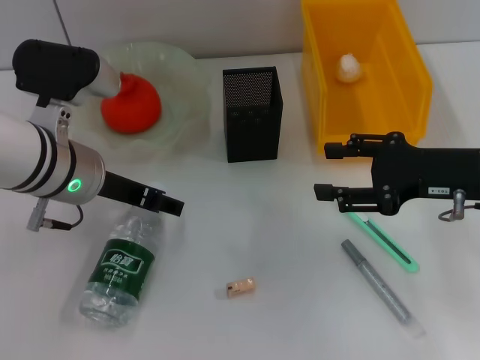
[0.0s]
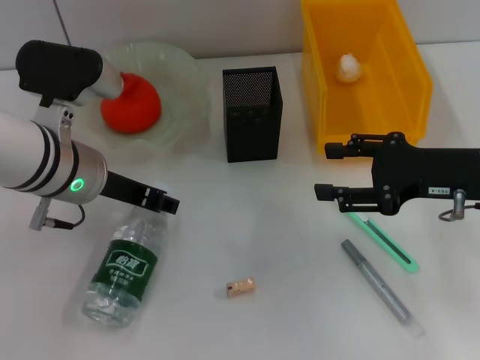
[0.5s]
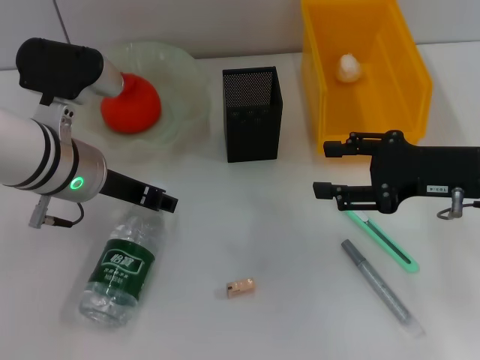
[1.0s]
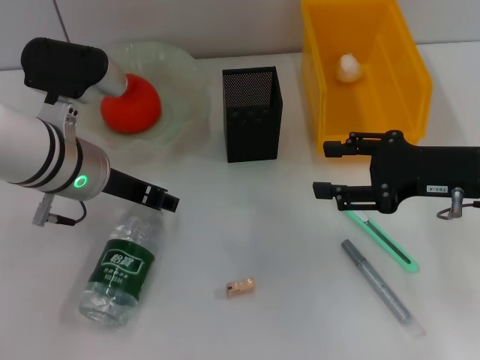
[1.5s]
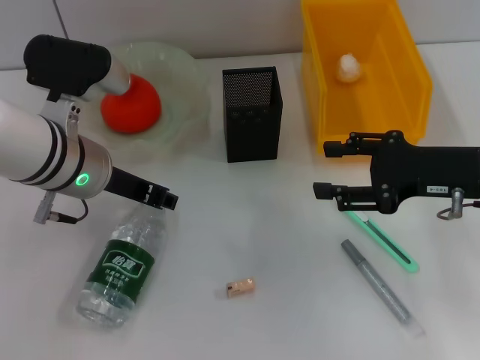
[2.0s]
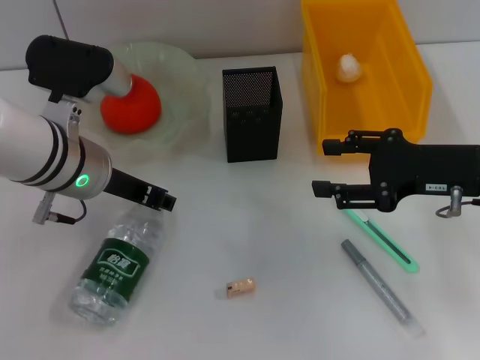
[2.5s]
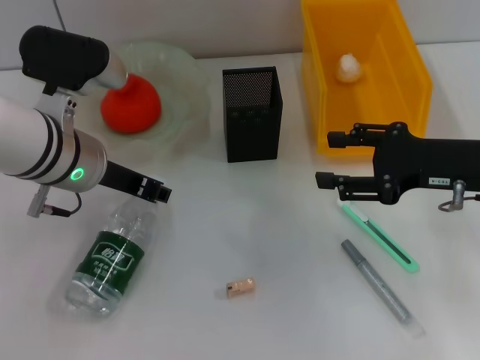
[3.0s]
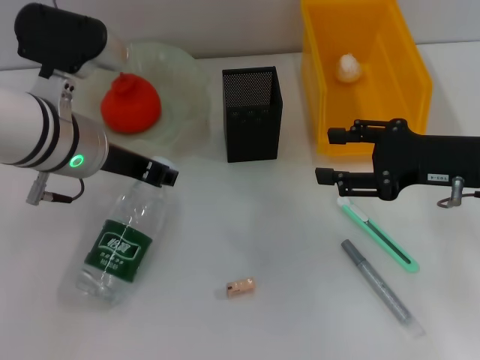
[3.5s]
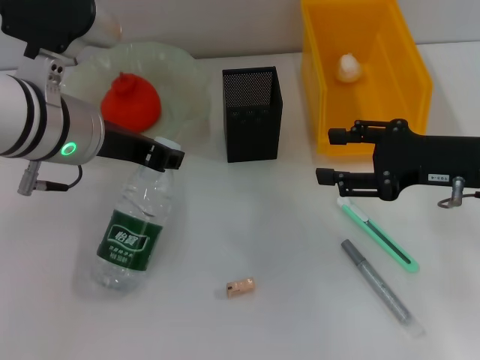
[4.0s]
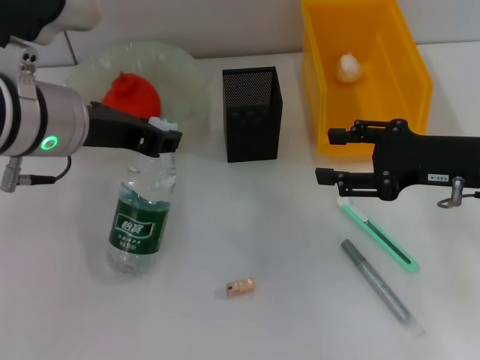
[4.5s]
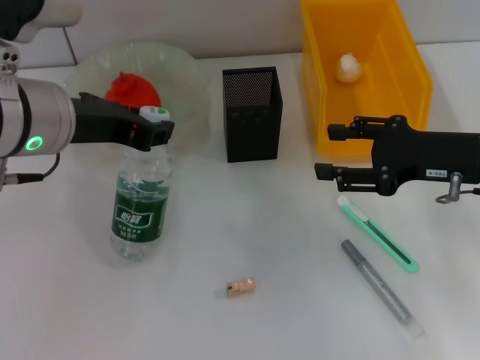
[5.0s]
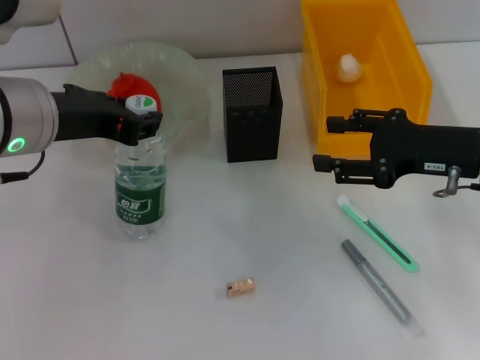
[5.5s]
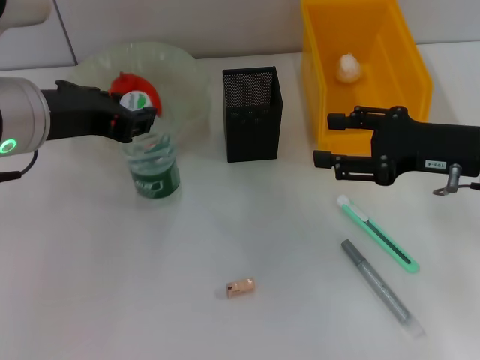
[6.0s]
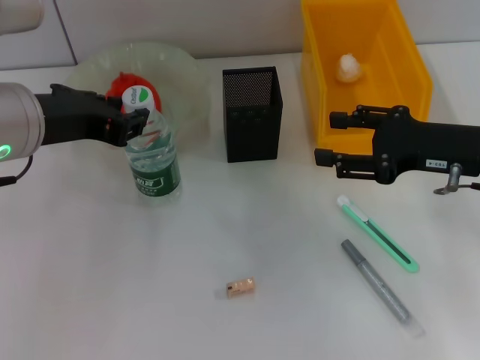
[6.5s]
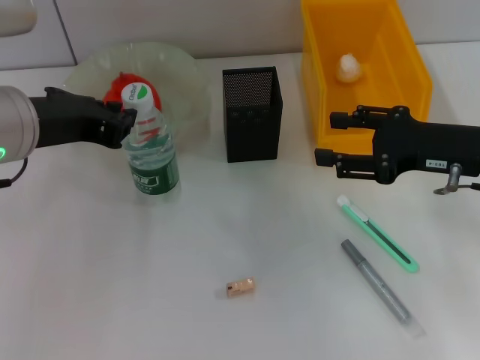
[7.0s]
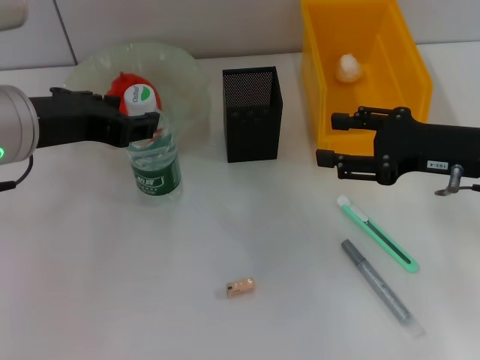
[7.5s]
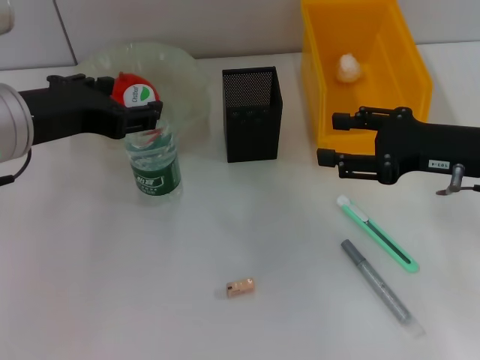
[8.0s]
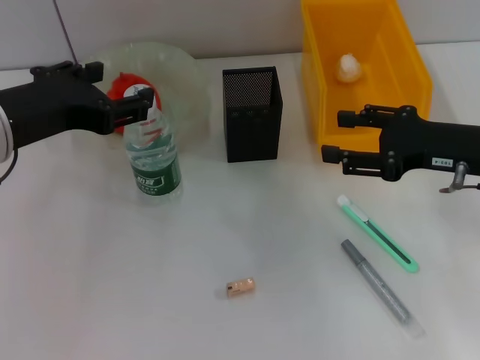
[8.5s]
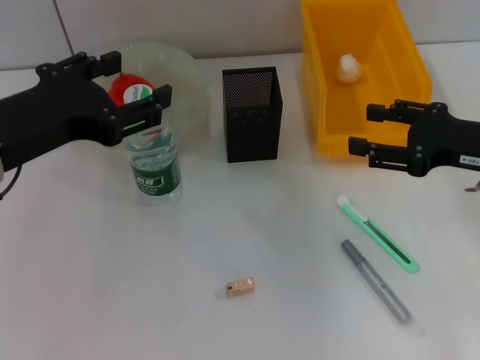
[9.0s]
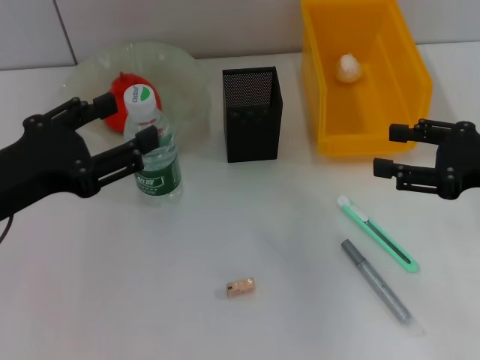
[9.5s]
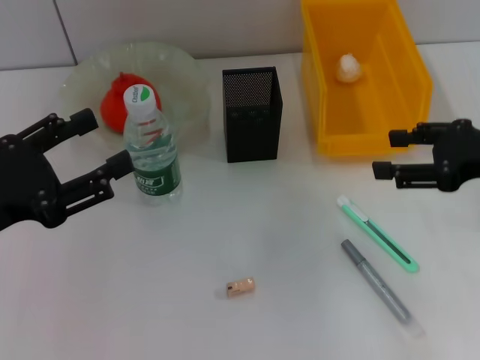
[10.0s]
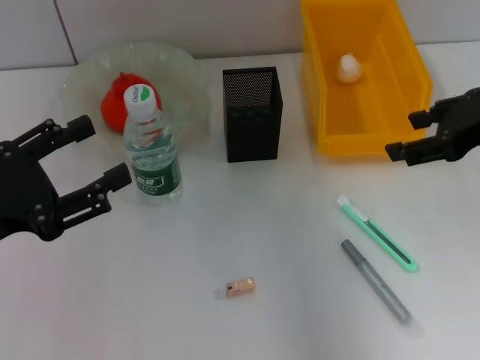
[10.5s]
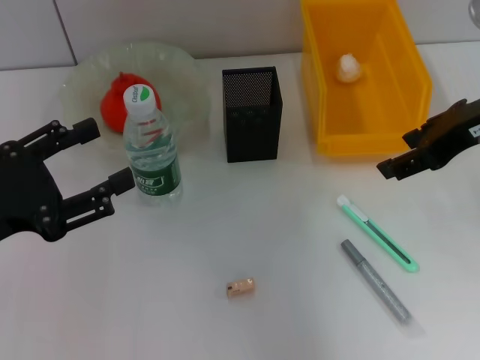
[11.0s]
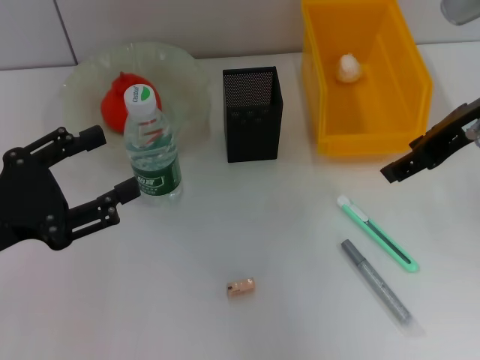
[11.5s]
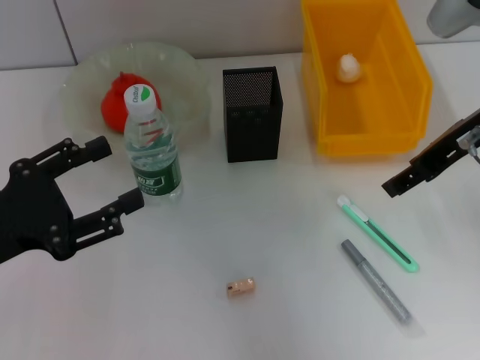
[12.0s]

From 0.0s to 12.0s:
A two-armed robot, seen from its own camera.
Step, from 0.0s to 2.5s: Grab the water bottle with the left hand.
Step, from 3.0s to 6.5s: Place the water bottle on the table with the left hand.
From 0.0s to 2.0s: The left gripper closes up.
From 2.0s to 4.0s: The left gripper is displaced upward by about 5 cm.
From 4.0s to 6.0s: The left gripper changes place by approximately 5 cm.
From 6.0s to 8.0s: The left gripper opens its fingers.
From 8.0s to 10.0s: The right gripper shifts by some 5 cm; the left gripper travels to the left, backward and downward by approximately 10 cm.
From 10.0s to 12.0s: The right gripper travels to the left, upward and forward by approximately 10 cm.

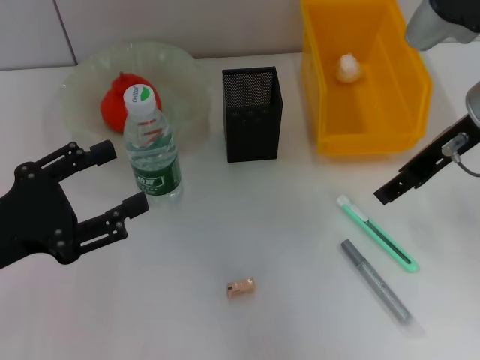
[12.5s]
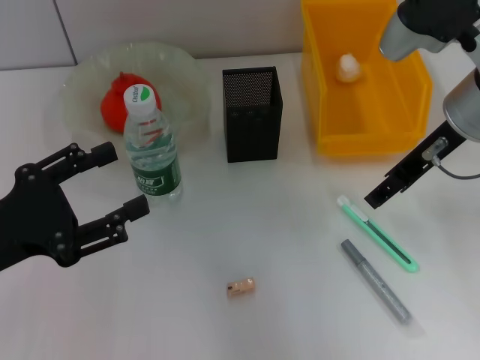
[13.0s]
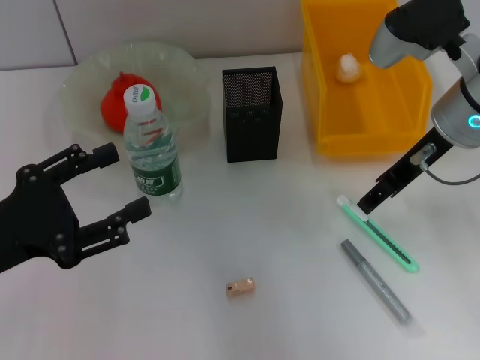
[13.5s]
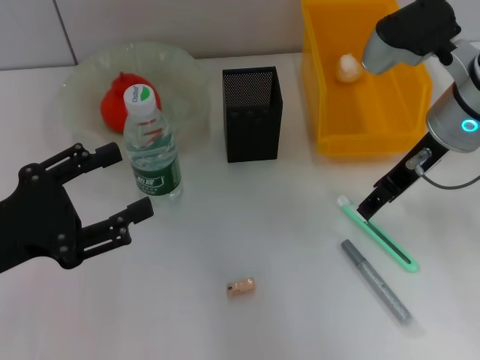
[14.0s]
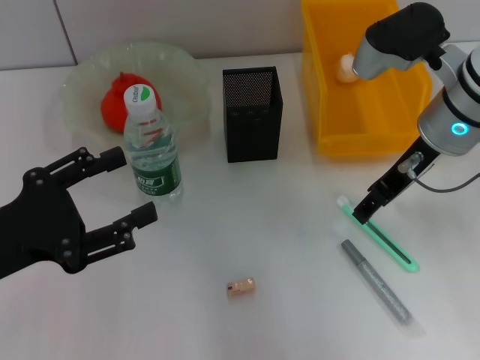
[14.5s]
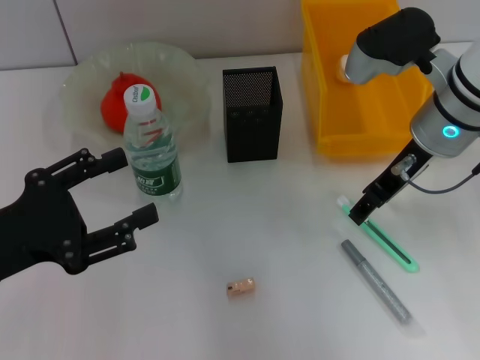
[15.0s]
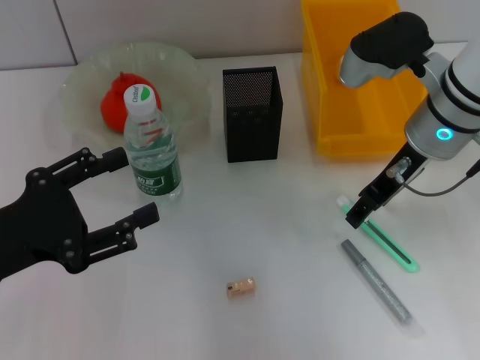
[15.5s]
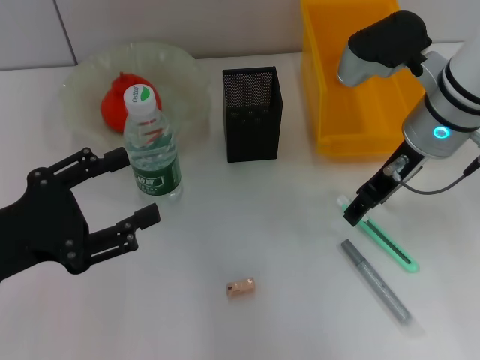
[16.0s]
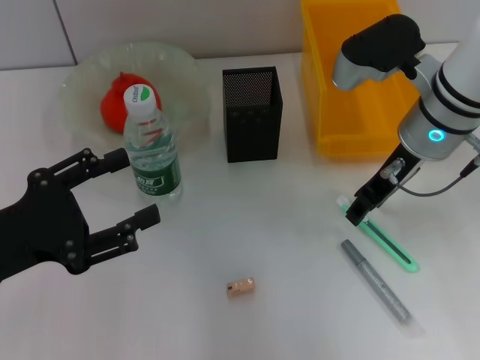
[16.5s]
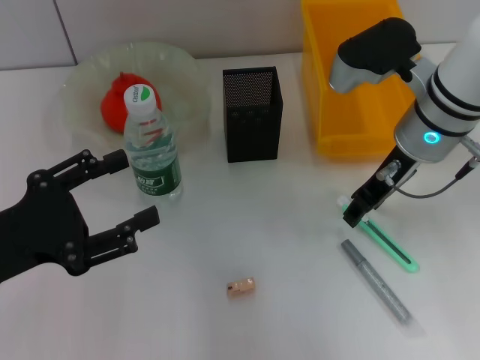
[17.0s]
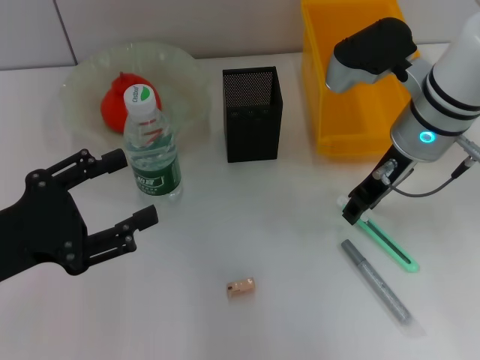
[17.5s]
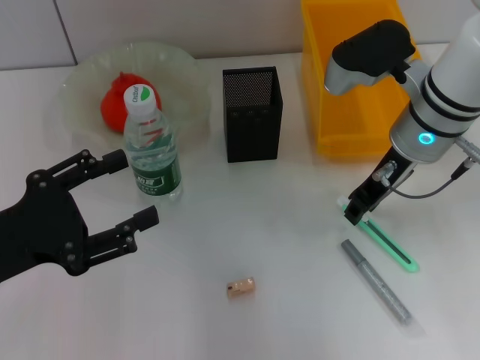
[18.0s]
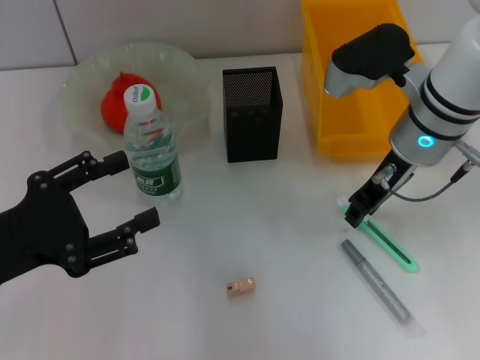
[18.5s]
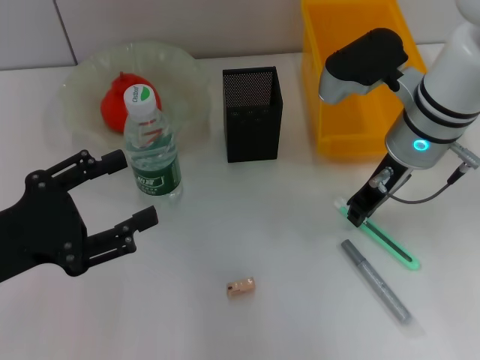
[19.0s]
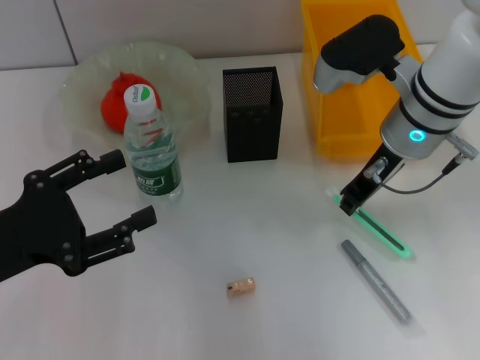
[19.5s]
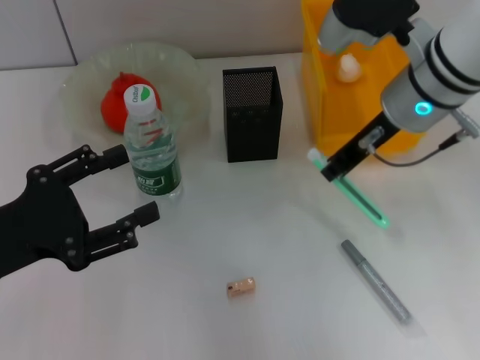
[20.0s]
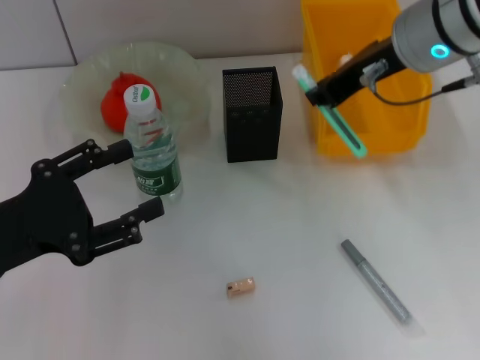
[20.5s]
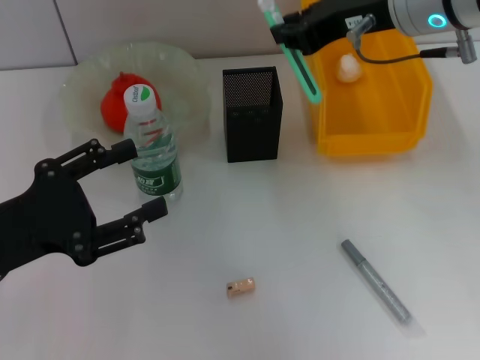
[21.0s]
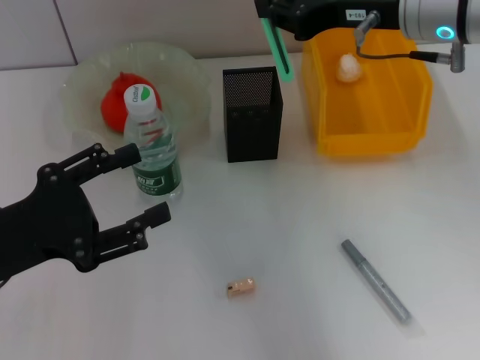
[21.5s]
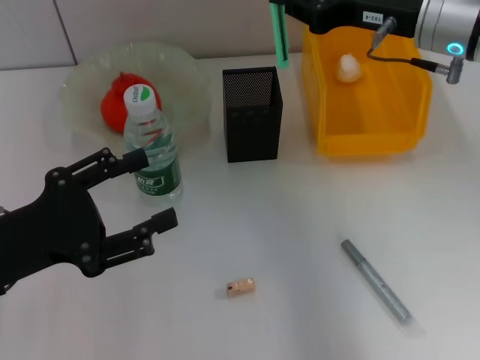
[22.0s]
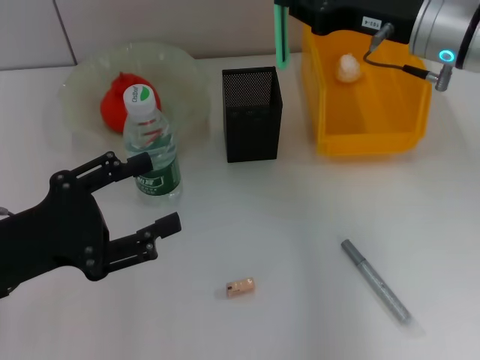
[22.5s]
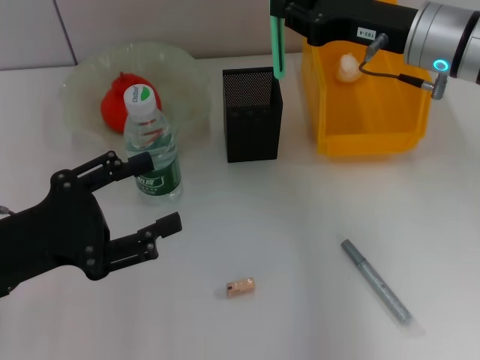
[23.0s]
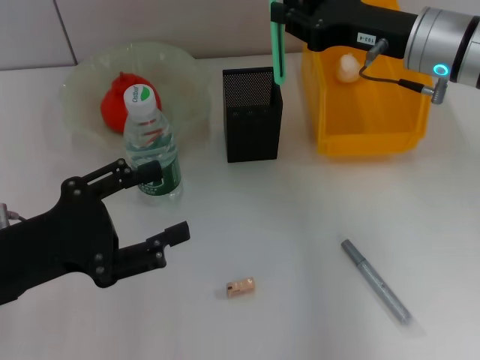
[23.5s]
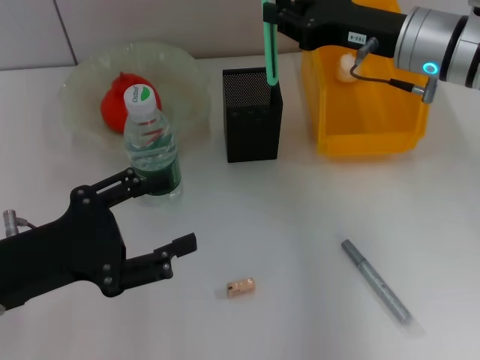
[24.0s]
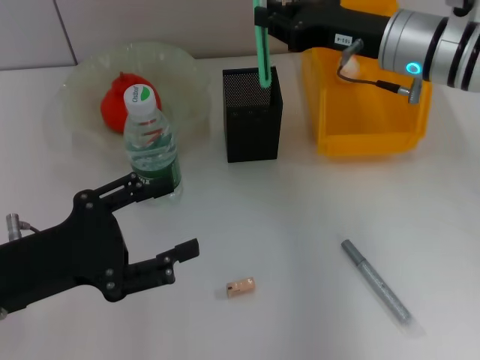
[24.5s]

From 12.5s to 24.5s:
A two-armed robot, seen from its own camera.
Step, from 12.5s to 19.0s: Grab the blue utility knife with the right hand.
From 12.5s to 14.5s: The right gripper changes place by about 5 cm.
From 14.5s to 16.5s: The grippers stay close to where they were, moving slightly.
From 16.5s to 18.5s: The two grippers keep their place.
From 18.5s to 20.5s: The right gripper is displaced upward by approximately 10 cm.
From 20.5s to 22.5s: The right gripper heads downward and to the right, covering about 10 cm.
From 22.5s to 24.5s: The grippers move only a little.

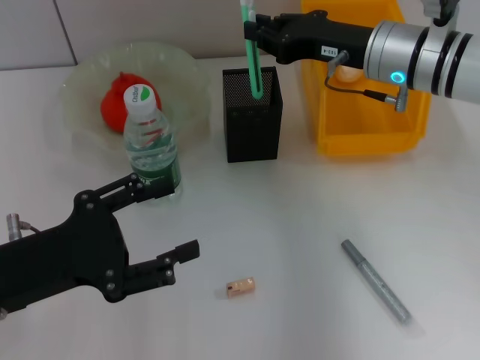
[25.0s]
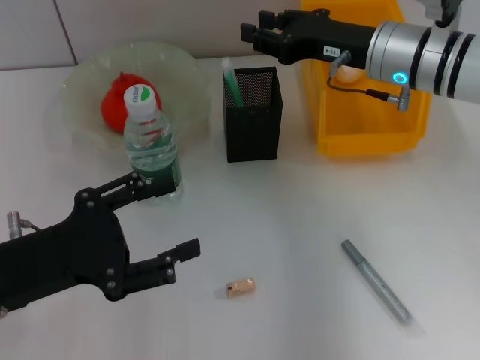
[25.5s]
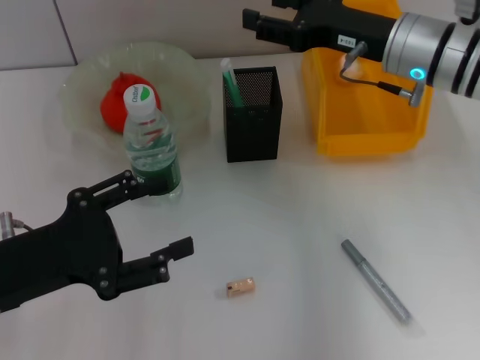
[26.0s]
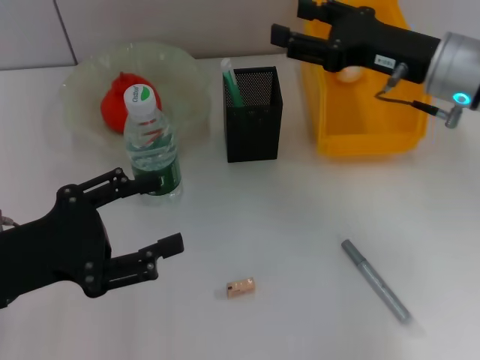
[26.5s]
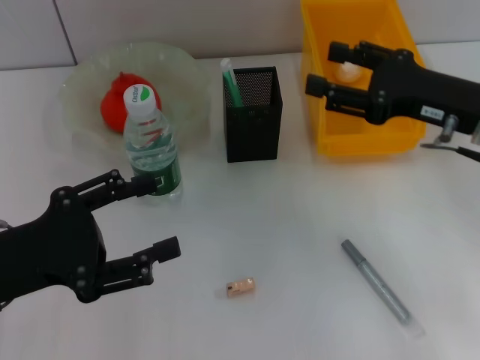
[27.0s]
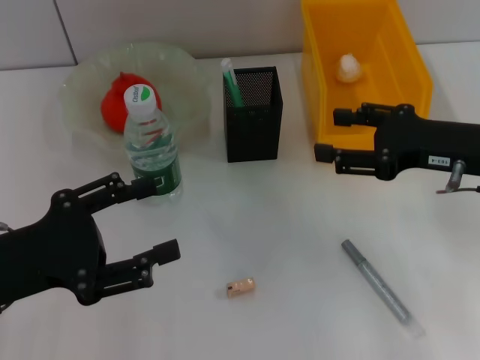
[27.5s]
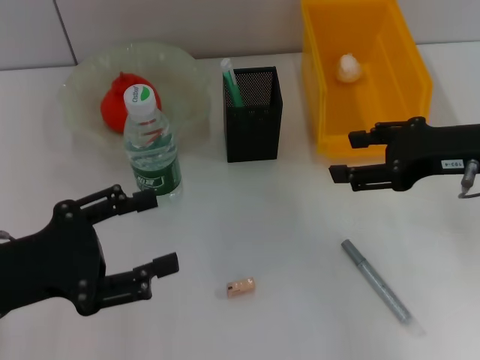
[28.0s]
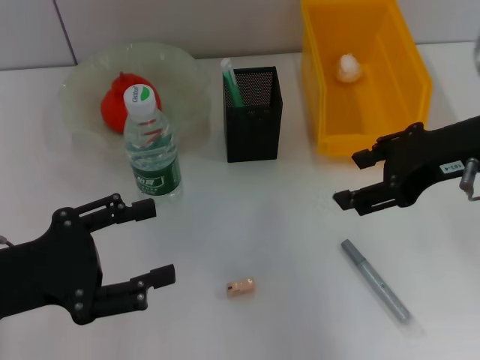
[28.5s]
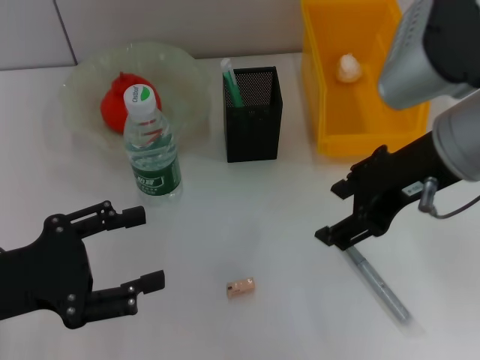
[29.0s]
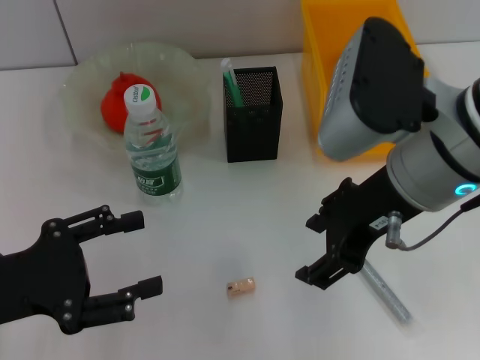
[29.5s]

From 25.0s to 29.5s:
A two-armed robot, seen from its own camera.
From 25.0s to 27.0s: The right gripper shifts about 10 cm backward and to the right, and opens its fingers.
From 27.0s to 29.5s: The right gripper heads to the left and upward, covering some 15 cm.
